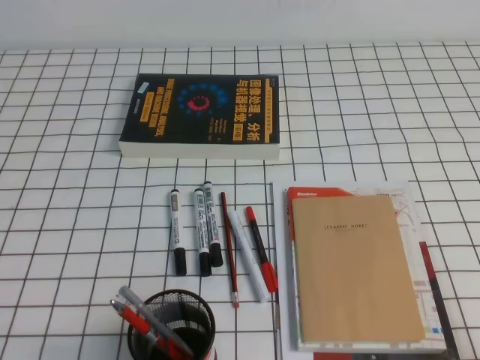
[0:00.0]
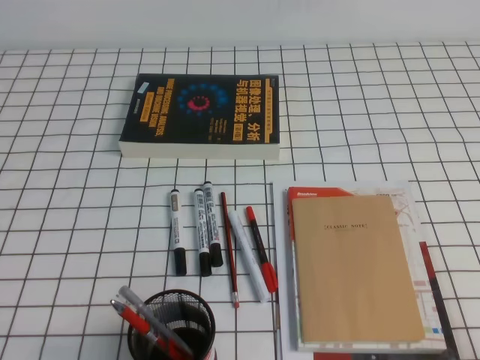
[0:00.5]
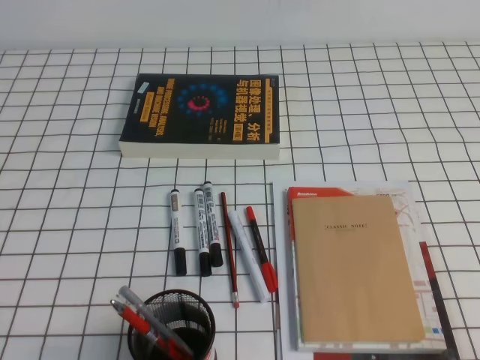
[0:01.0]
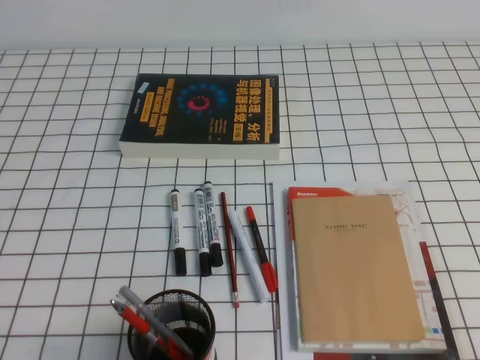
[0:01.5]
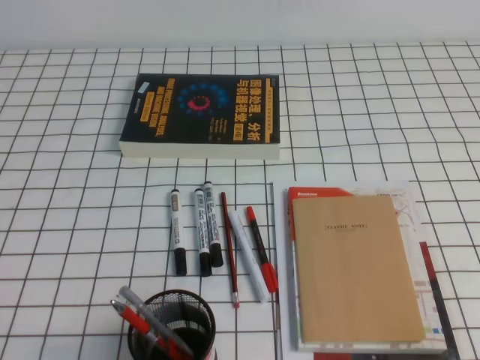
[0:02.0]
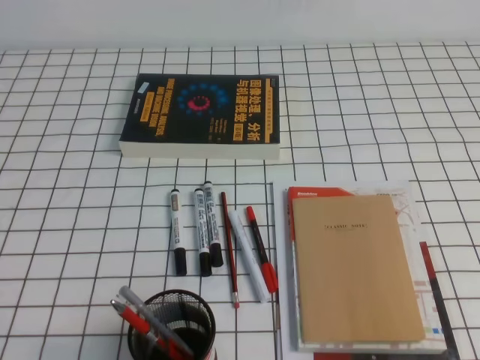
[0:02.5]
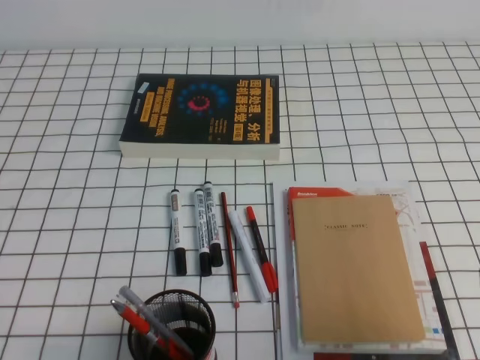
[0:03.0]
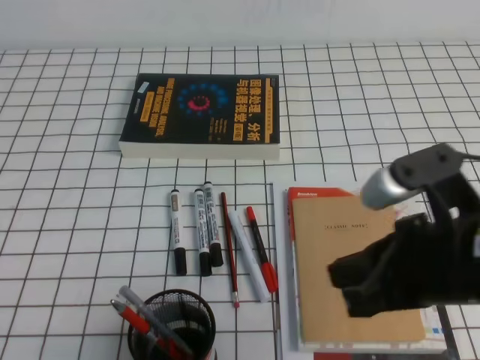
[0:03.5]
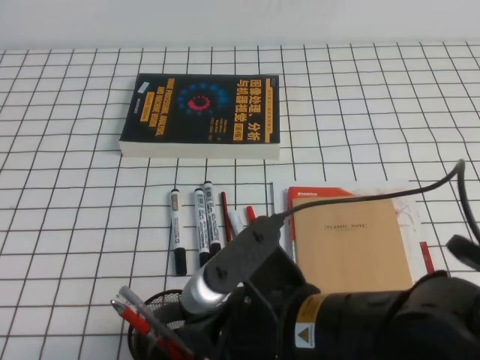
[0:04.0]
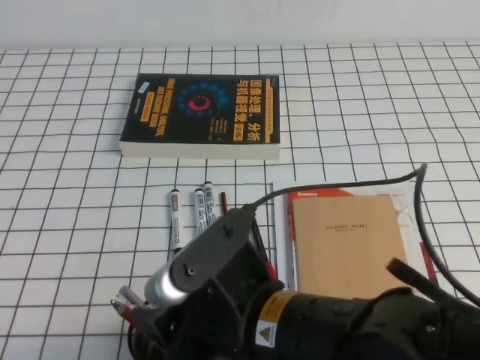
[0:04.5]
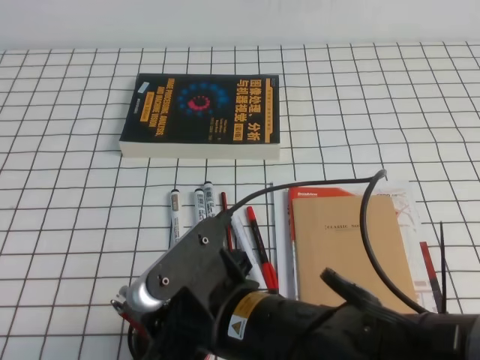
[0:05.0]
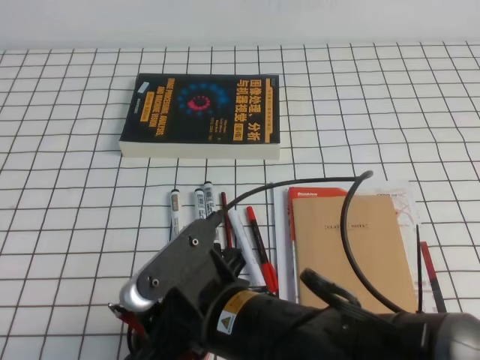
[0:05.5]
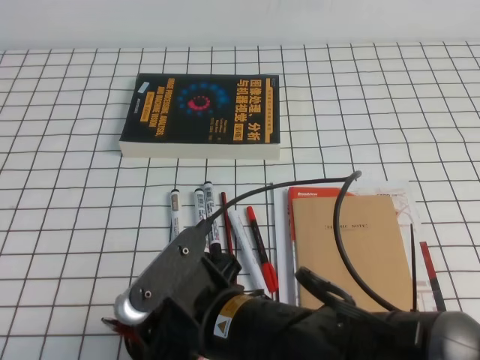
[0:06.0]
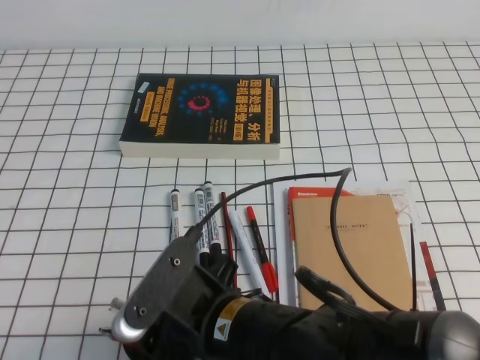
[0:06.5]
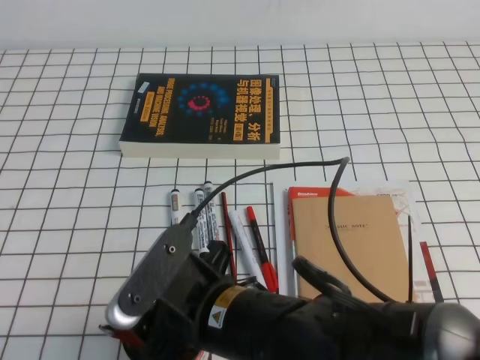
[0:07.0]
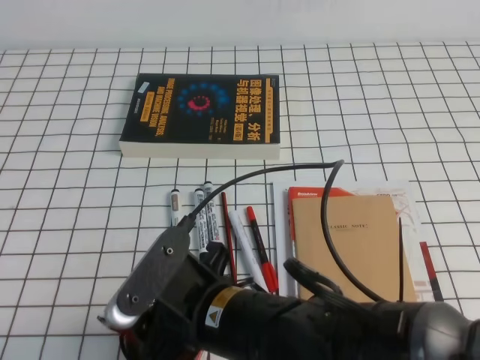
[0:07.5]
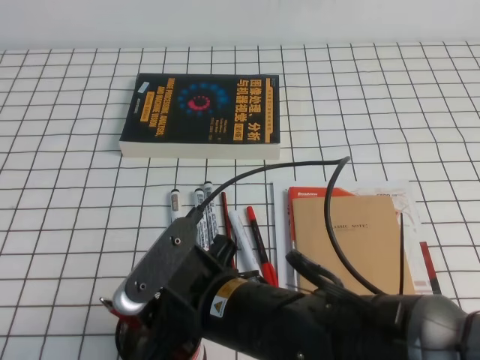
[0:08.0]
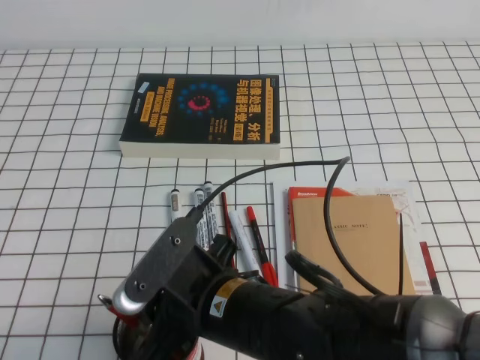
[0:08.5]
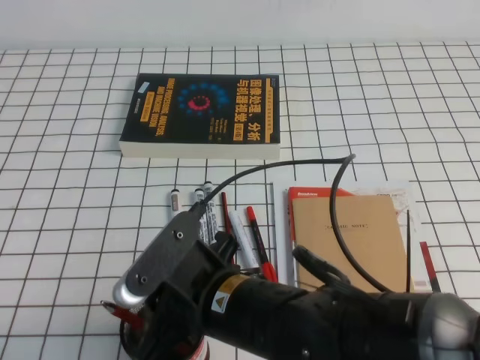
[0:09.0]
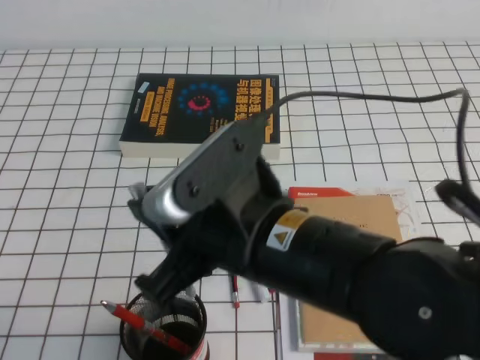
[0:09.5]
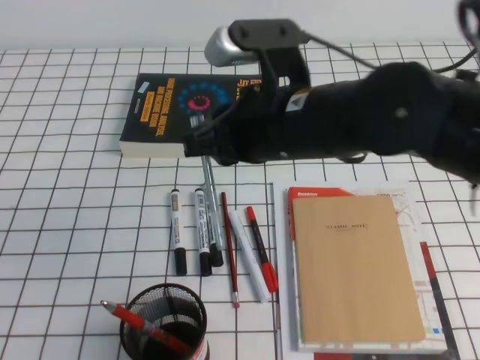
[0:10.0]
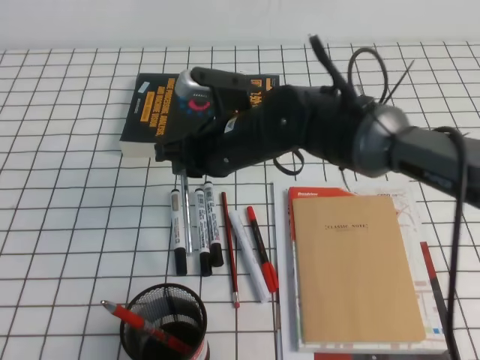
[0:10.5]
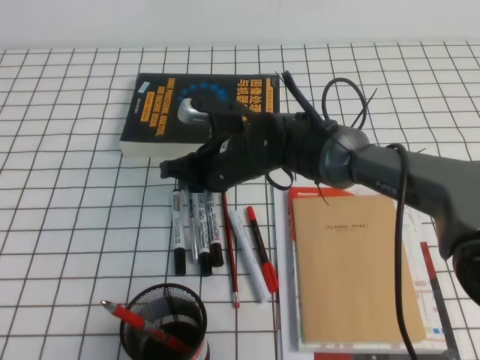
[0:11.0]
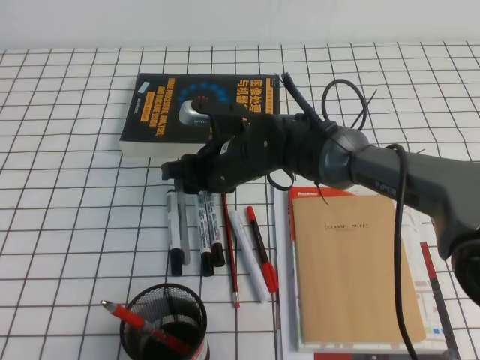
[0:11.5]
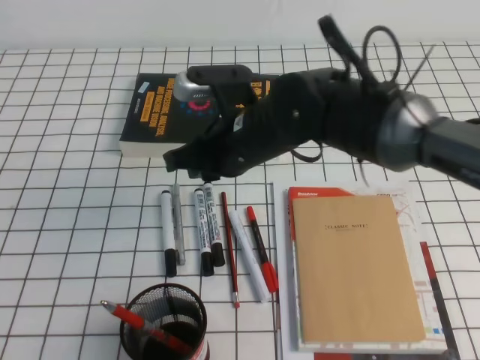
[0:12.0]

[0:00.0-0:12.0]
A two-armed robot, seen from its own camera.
0:02.0 to 0:04.0: The right gripper travels to the left by approximately 25 cm.
0:04.0 to 0:06.0: The right gripper travels to the left by roughly 10 cm, and opens up.
0:06.0 to 0:08.0: The grippers stay close to where they were, moving slightly.
0:08.0 to 0:10.0: The right gripper shifts some 15 cm upward, forward and to the right, and closes its fingers.
0:10.0 to 0:12.0: The right gripper travels forward and downward by roughly 10 cm, and opens and closes again.

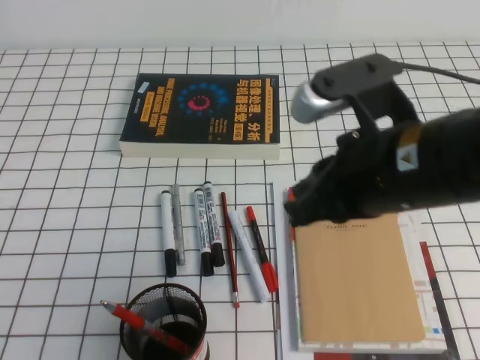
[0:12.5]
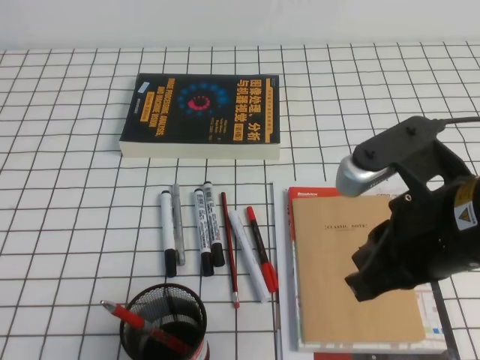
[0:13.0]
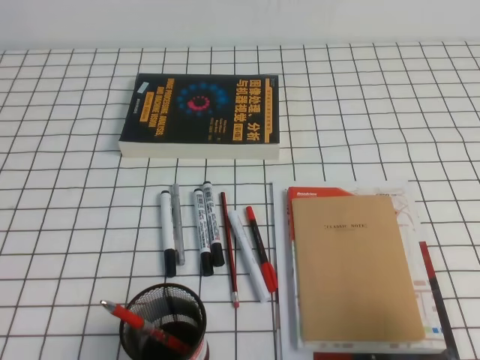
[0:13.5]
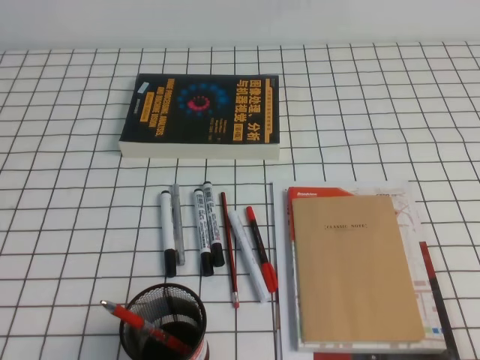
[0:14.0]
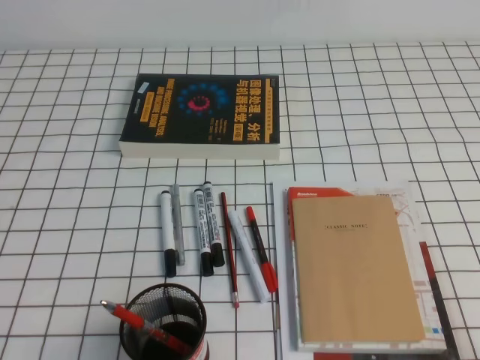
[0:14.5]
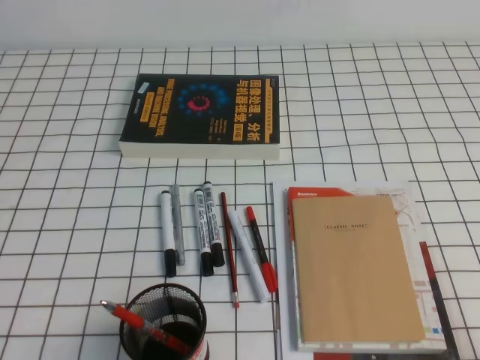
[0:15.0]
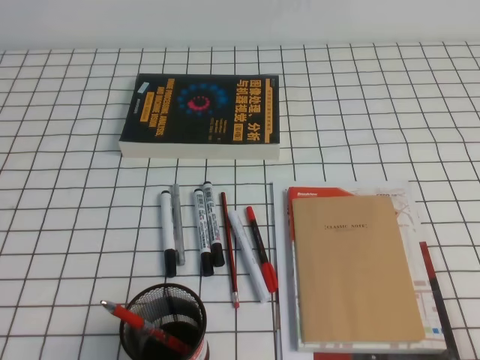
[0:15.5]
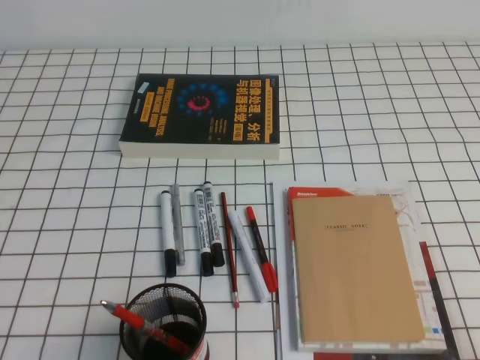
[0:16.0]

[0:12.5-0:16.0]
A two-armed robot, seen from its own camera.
Step, 0:12.5 to 0:16.0: Pick up the pen from the pen holder.
0:12.5 to 0:14.5: The right gripper goes some 30 cm to the right, backward and downward.
